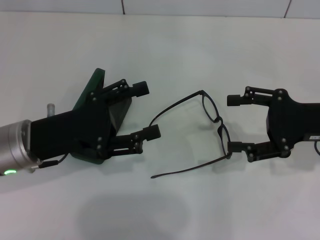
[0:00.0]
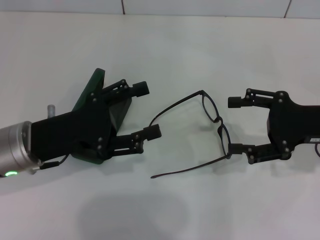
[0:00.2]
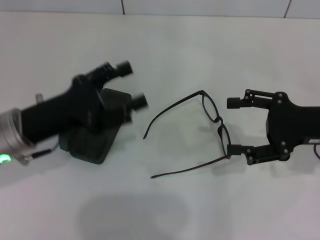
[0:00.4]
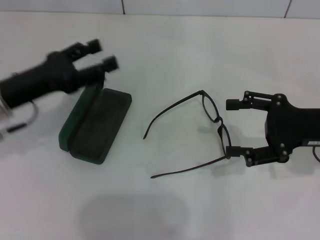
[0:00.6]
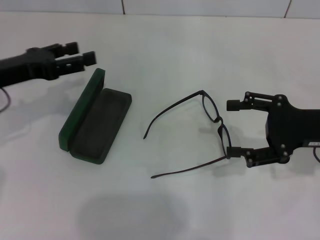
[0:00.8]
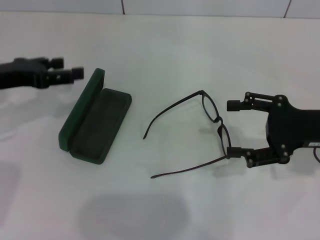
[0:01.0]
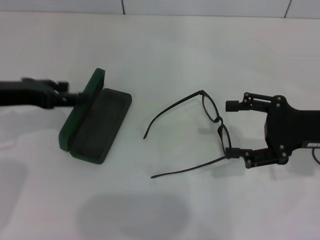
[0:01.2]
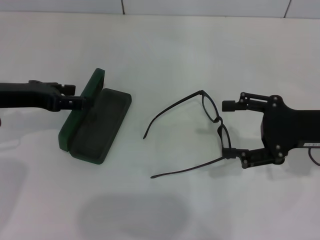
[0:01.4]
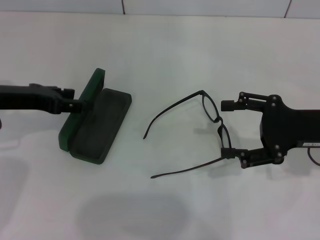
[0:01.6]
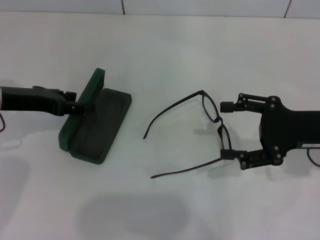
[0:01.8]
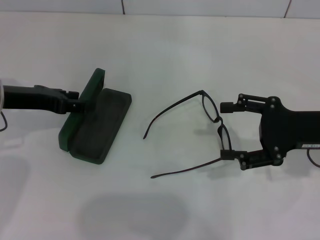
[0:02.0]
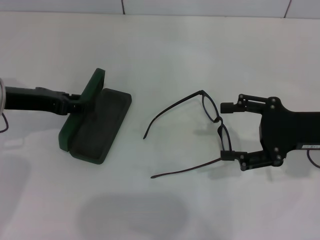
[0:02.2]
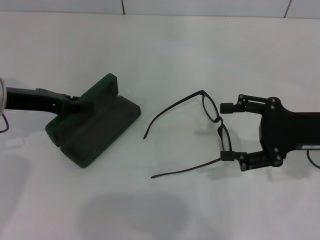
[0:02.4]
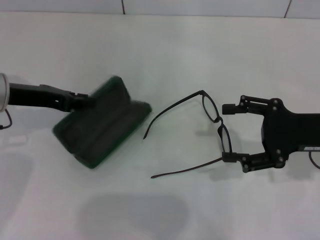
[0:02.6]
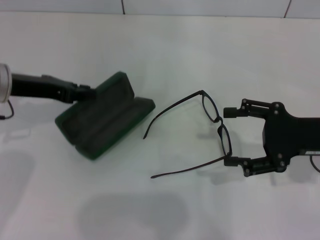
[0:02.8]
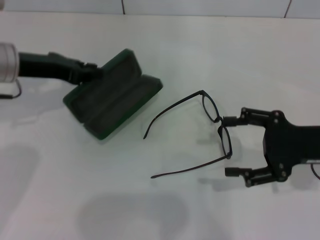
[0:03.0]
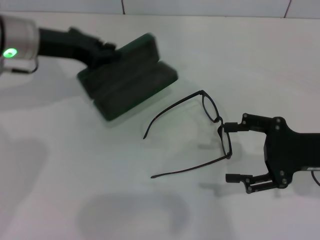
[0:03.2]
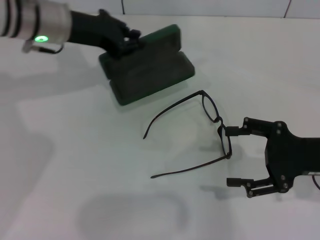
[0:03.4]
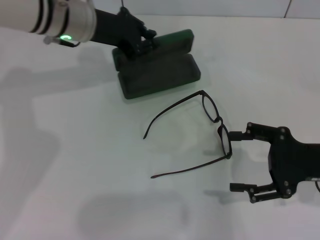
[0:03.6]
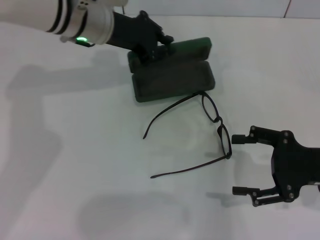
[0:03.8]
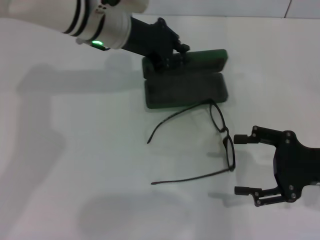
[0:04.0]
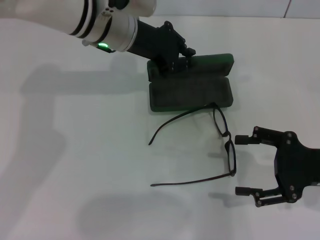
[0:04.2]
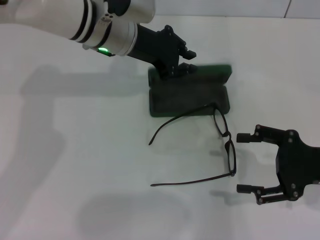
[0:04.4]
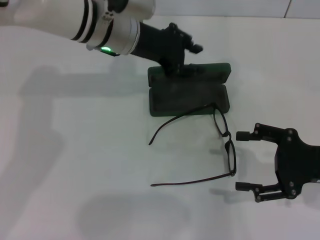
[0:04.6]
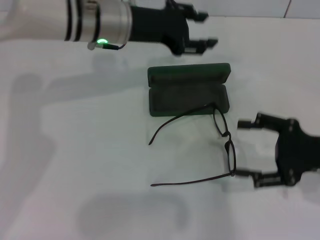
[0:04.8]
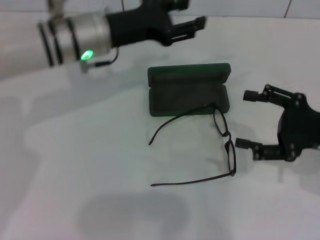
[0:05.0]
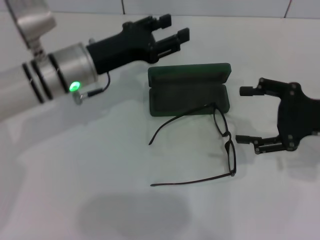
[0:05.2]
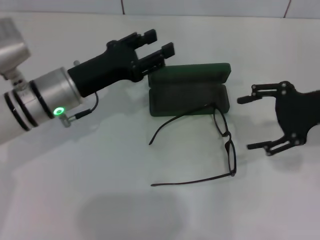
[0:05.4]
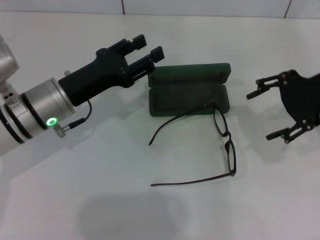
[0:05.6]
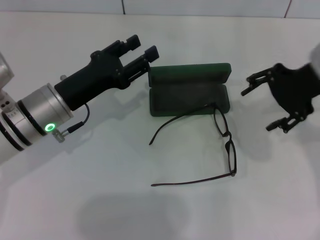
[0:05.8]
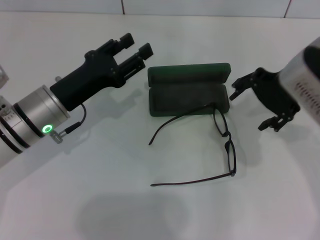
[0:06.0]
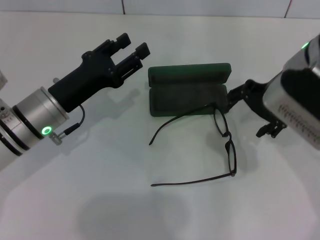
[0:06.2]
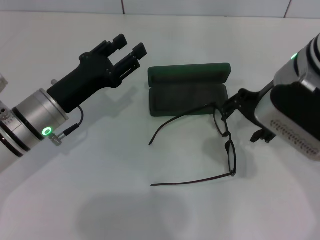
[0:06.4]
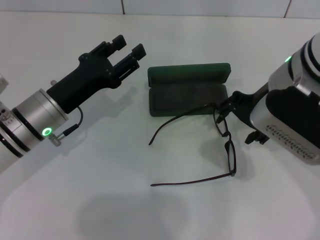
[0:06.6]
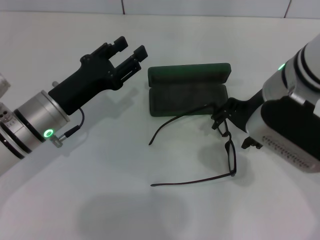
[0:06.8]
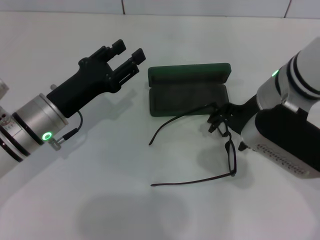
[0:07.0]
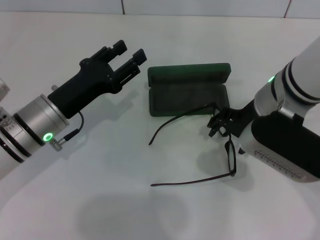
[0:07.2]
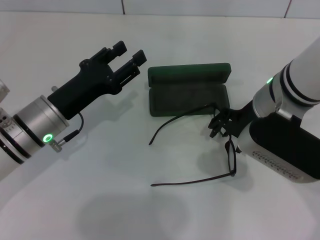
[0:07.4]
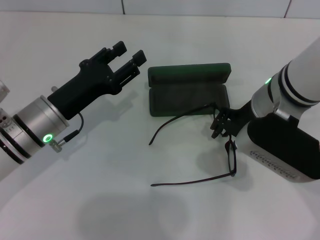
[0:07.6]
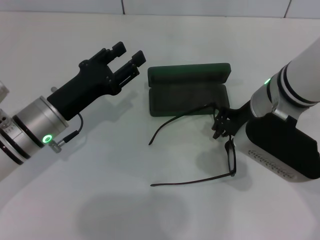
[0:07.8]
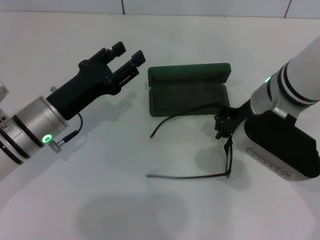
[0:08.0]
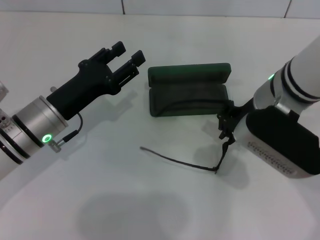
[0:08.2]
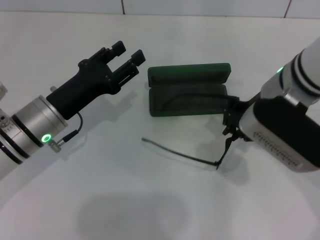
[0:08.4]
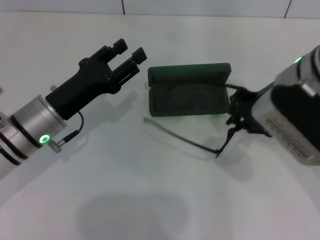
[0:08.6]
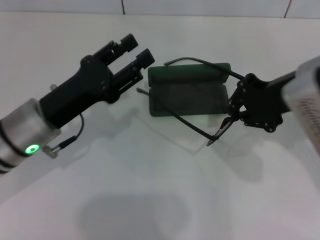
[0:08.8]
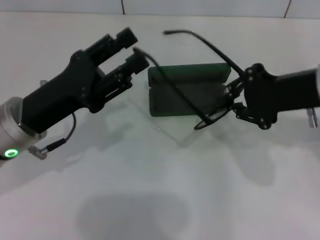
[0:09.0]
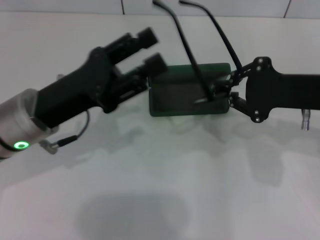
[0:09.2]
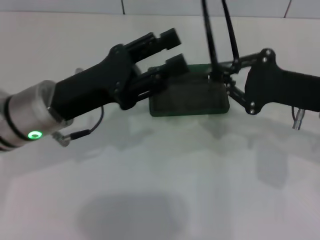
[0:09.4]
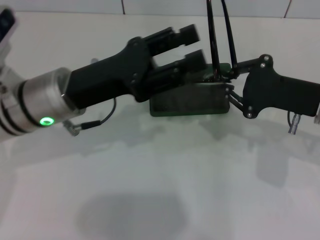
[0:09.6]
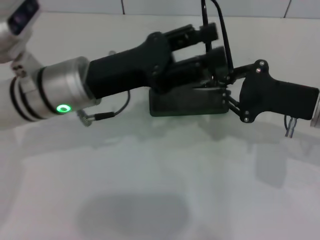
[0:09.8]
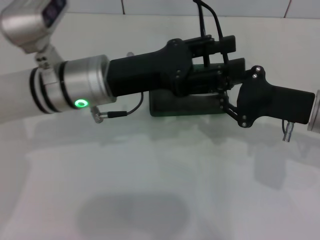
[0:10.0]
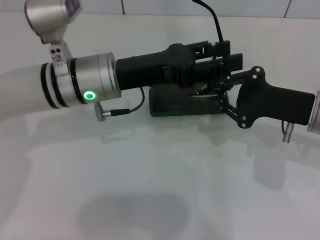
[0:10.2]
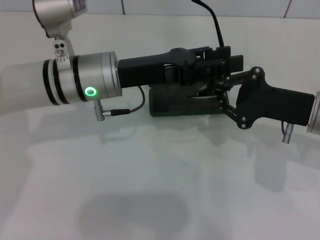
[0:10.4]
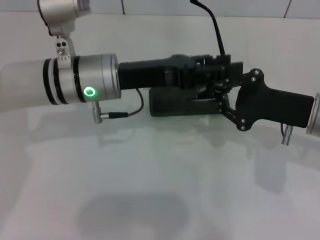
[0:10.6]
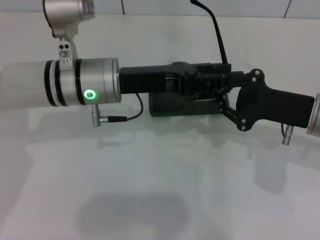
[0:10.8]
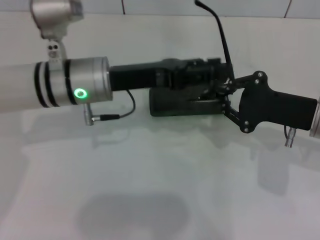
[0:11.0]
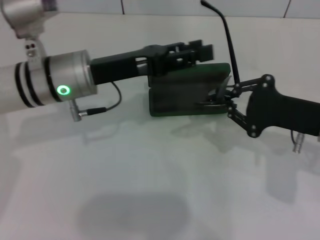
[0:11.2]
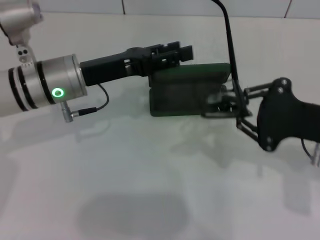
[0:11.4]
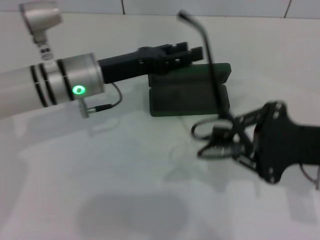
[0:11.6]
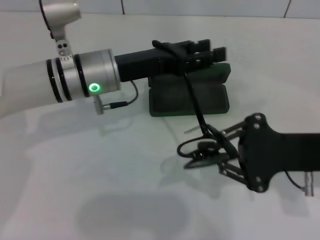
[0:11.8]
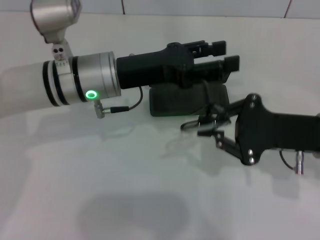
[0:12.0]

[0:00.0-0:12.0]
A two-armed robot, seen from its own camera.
Step, 0.0 to 2.4 s: Grab the glasses case with your left hand.
Step, 2.6 to 4.4 s: Place the glasses case in the center of the table with your left hand.
Step, 4.6 to 8.0 s: Grab the eyeglass frame with your right hand.
0.0 to 1.6 s: The left gripper moves forward and to the left, roughly 10 cm.
1.6 to 3.0 s: The left gripper moves about 5 cm, and closes.
3.0 to 4.4 s: The left gripper shifts roughly 15 cm to the right.
4.4 to 6.0 s: The right gripper heads upward, to the left and forward, covering approximately 20 cm, while the left gripper is displaced backward, to the left and downward by some 20 cm, and opens up.
6.0 to 7.6 s: The right gripper moves downward and to the left, about 10 cm.
7.6 to 9.0 s: The left gripper moves some 5 cm. Meanwhile the right gripper heads to the right, covering roughly 10 cm, and closes its fingers.
9.0 to 10.4 s: The left gripper is displaced to the right and forward by about 10 cm, while the right gripper heads downward, covering about 10 cm.

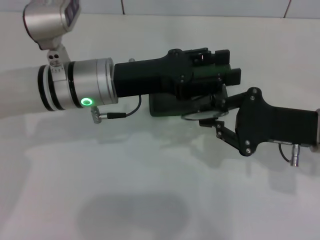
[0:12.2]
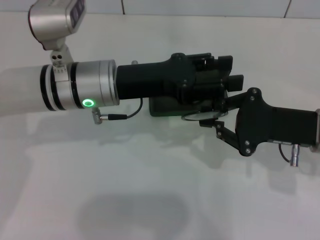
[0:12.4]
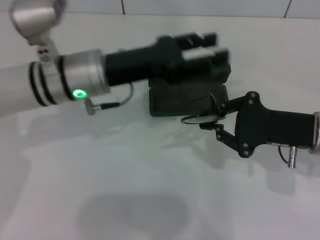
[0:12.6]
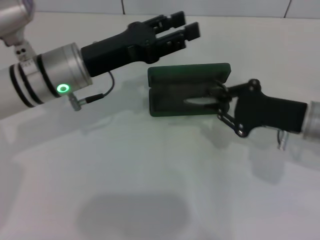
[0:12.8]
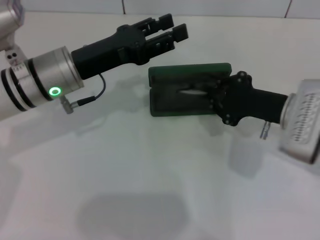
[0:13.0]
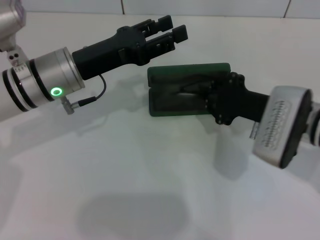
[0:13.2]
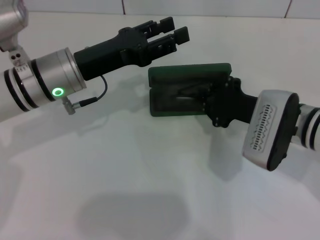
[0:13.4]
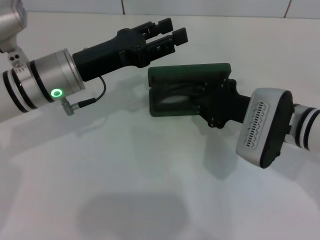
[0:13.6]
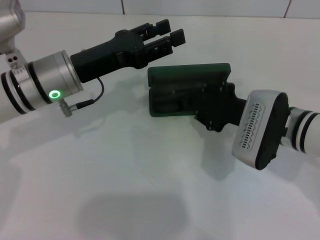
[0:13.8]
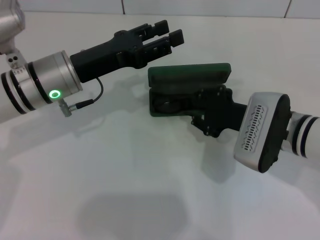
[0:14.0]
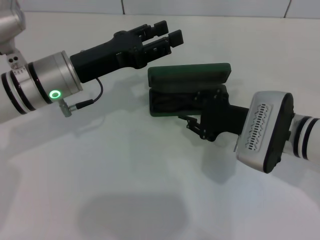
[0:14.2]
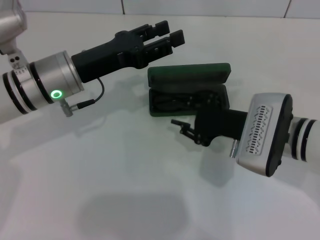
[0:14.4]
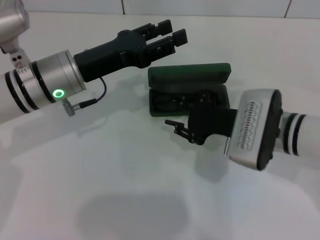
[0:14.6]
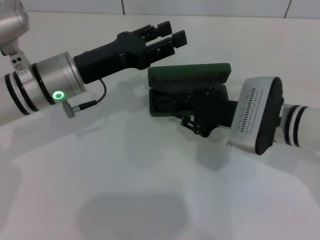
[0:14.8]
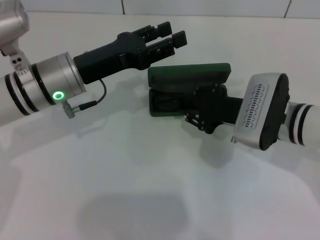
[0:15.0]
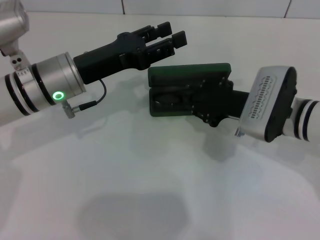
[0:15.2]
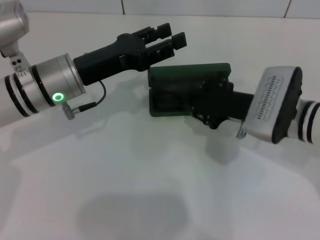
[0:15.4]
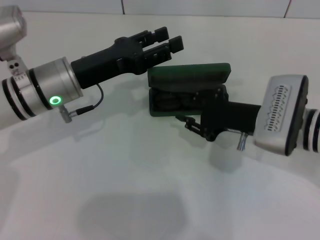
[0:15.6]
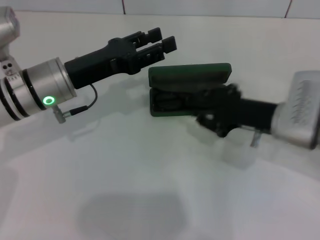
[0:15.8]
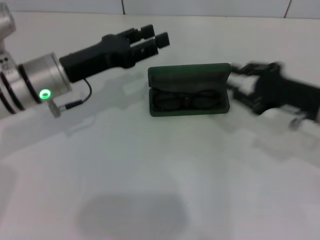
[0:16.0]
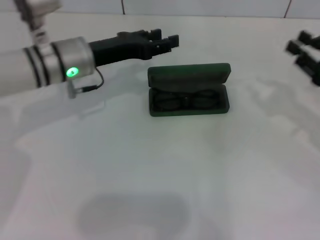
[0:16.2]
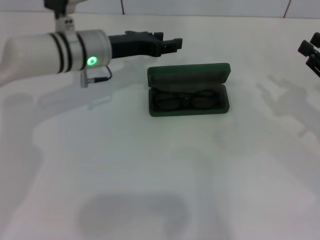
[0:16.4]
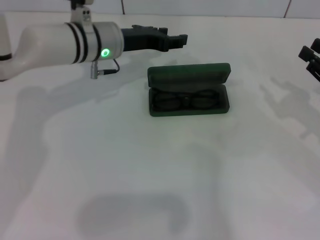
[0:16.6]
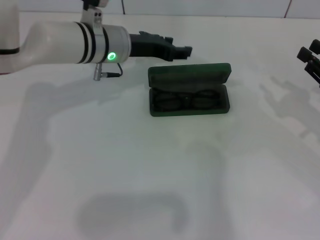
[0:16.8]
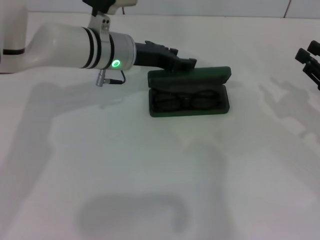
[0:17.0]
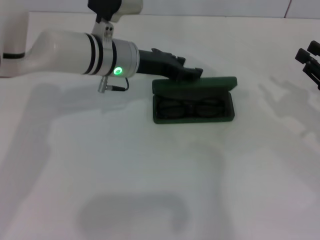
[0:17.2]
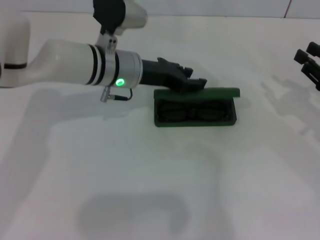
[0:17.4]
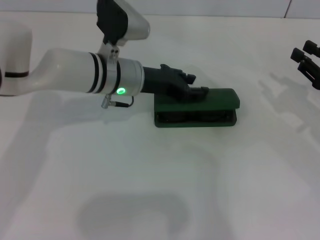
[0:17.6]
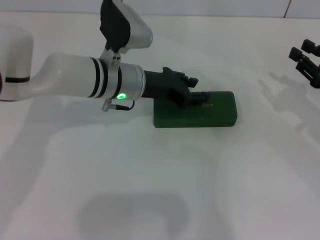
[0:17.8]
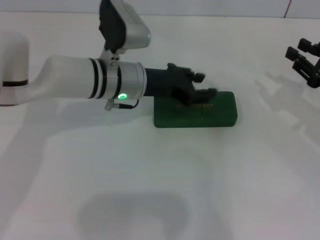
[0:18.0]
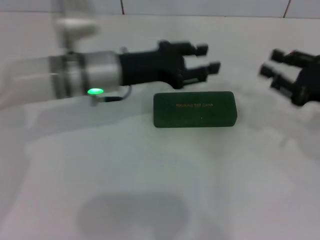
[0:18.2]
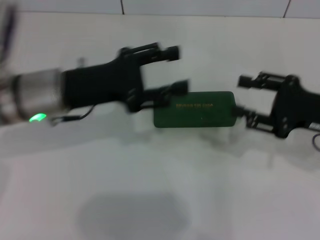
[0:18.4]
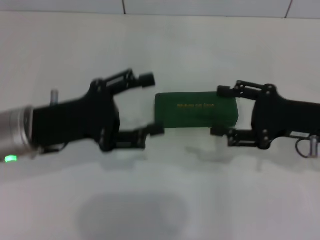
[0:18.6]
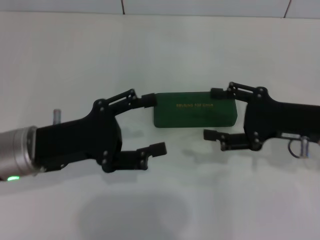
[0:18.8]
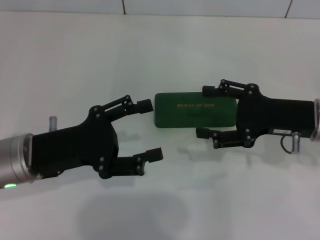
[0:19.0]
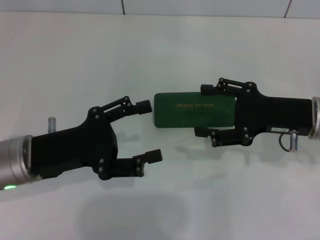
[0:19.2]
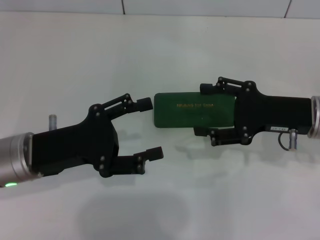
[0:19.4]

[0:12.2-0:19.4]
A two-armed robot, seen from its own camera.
Step, 12.6 to 13.8 s: Put the glasses into the case with your right hand.
Step, 14.2 to 17.6 s: Close the glasses case with your left hand.
12.2 to 13.6 s: The left gripper shifts by some 5 cm, while the right gripper moves to the left, roughly 5 cm.
13.6 to 15.0 s: The grippers move only a little.
15.0 to 16.6 s: The left gripper moves forward and to the right, some 10 cm, while the right gripper heads to the right, covering roughly 20 cm.
16.6 to 18.0 s: The left gripper changes place by roughly 5 cm.
18.0 to 19.4 s: The left gripper heads backward and to the left, covering about 20 cm, and opens up. The right gripper shifts roughly 10 cm to the left, and opens up.

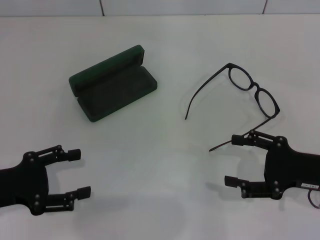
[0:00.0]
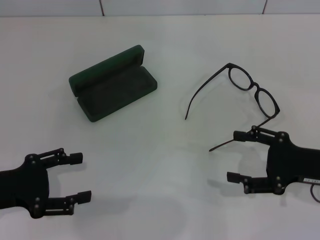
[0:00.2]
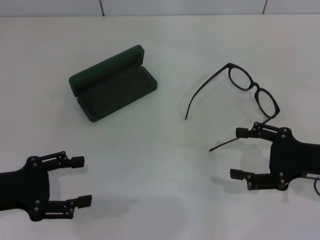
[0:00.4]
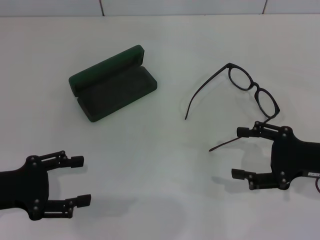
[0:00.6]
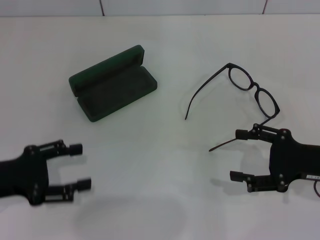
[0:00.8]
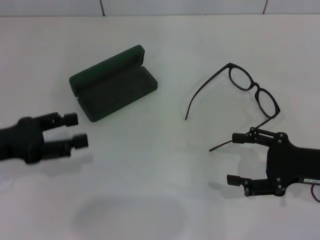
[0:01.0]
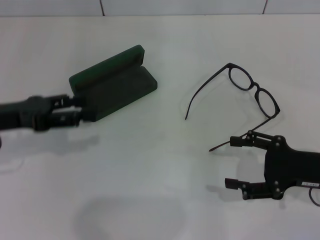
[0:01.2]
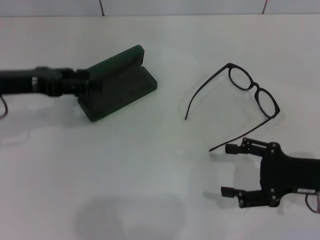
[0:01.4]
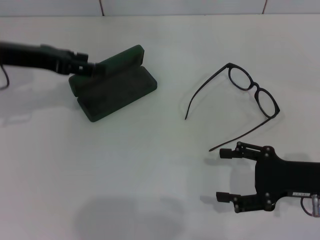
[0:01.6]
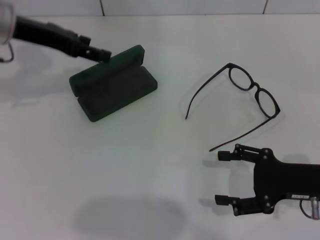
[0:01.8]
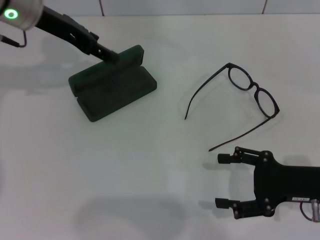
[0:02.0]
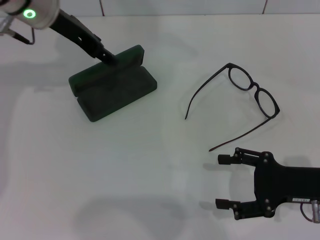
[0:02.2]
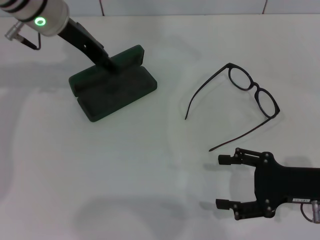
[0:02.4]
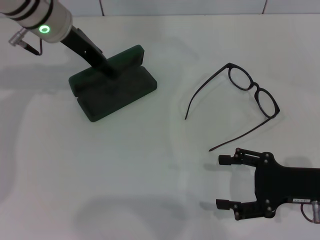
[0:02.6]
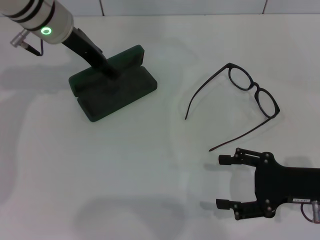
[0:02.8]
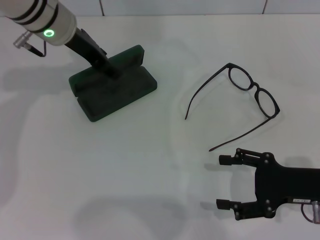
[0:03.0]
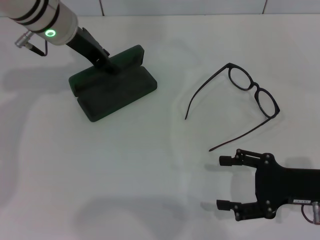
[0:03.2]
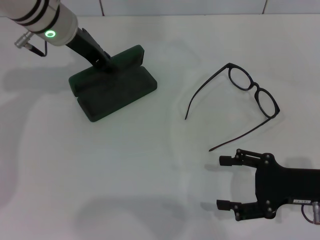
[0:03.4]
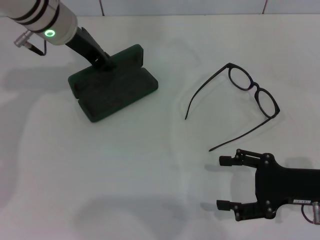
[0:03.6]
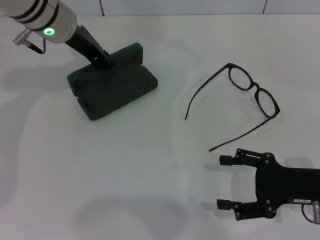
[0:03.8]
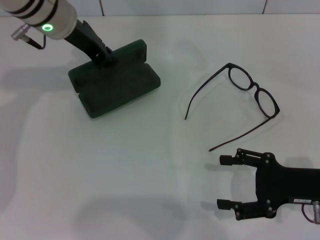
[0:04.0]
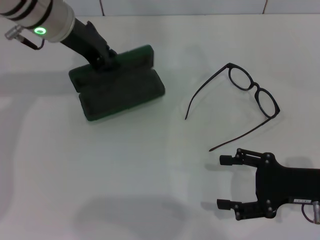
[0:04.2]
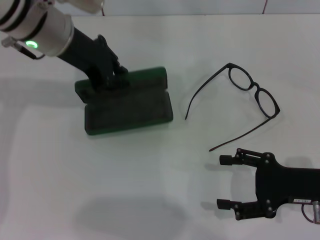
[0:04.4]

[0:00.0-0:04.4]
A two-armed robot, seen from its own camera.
Step, 0.0 to 3.4 s: Grab the glasses case with your left hand.
0.0 to 1.4 s: The left gripper shifts some 15 cm forward and upward.
1.4 to 3.0 s: The left gripper travels to the right and forward by approximately 15 cm.
3.0 to 4.4 s: The left gripper shifts by about 5 cm, and closes its fingers.
